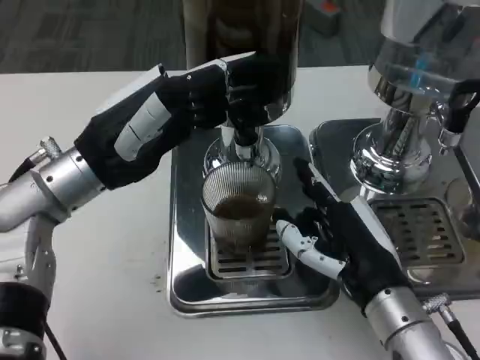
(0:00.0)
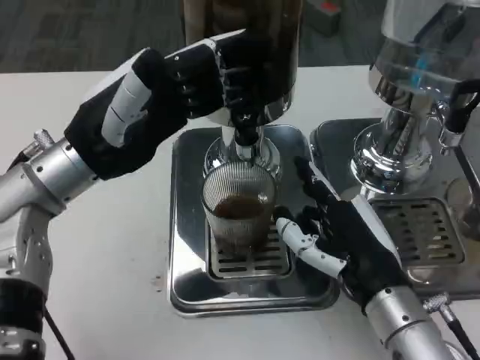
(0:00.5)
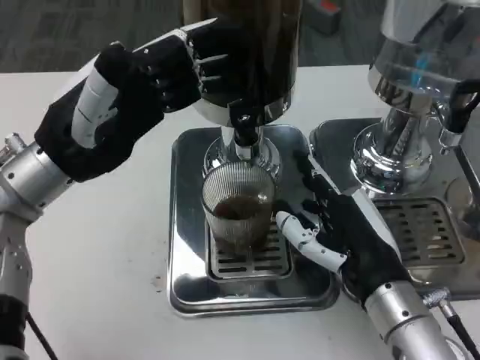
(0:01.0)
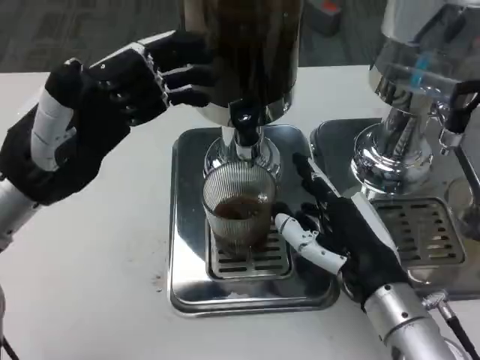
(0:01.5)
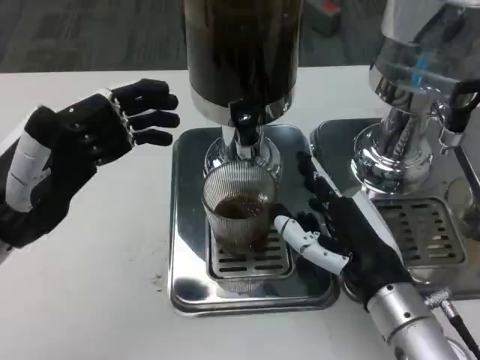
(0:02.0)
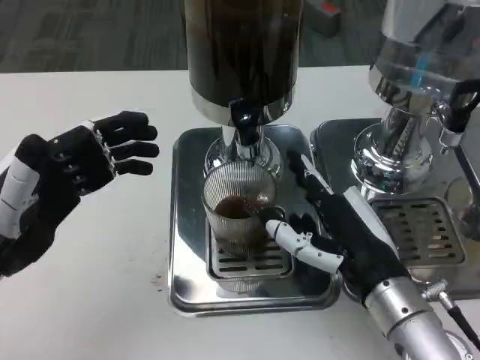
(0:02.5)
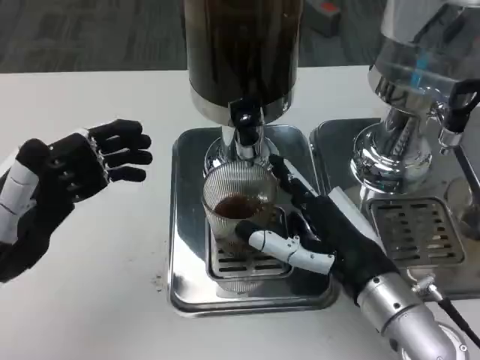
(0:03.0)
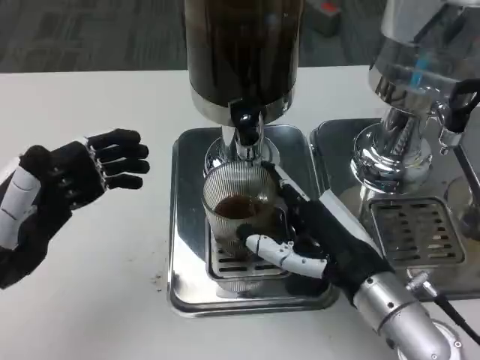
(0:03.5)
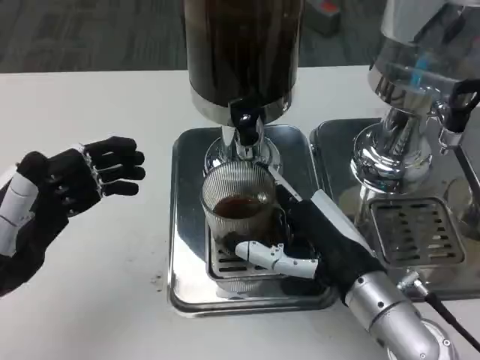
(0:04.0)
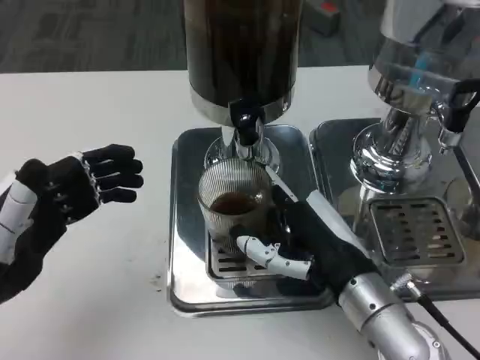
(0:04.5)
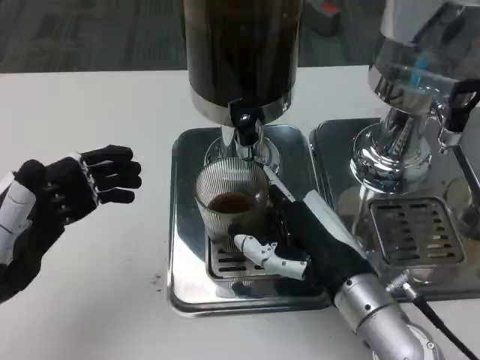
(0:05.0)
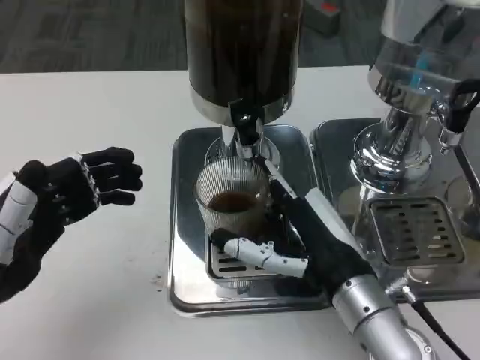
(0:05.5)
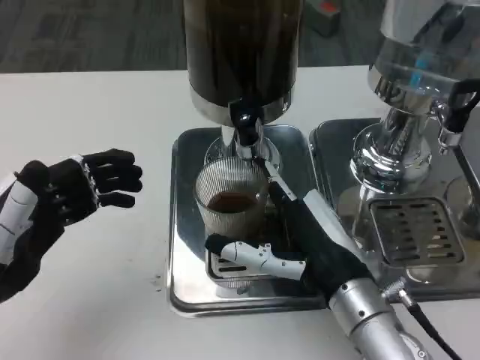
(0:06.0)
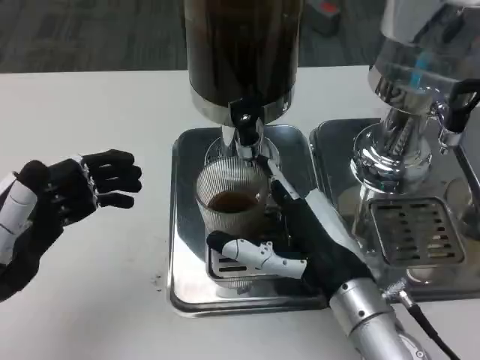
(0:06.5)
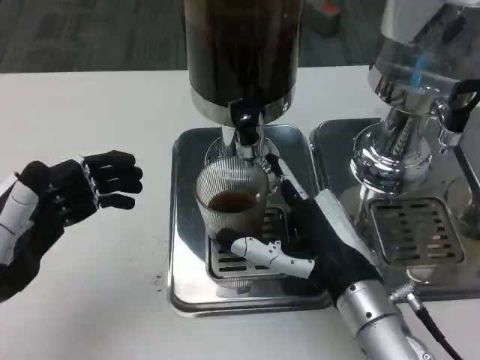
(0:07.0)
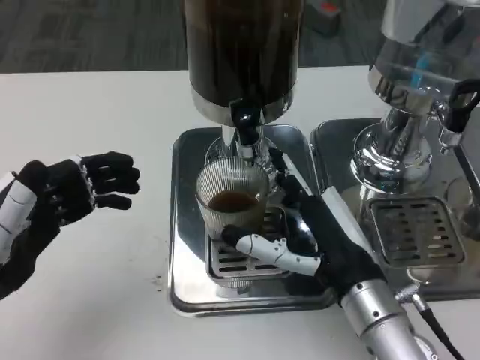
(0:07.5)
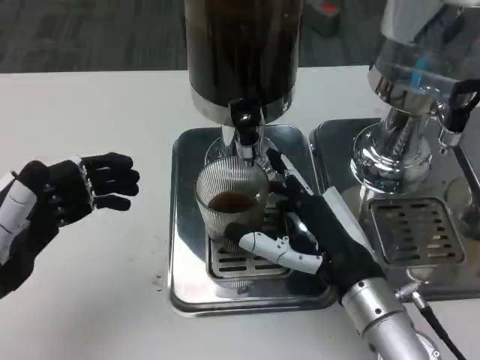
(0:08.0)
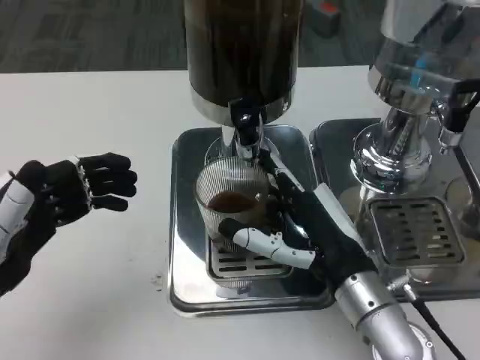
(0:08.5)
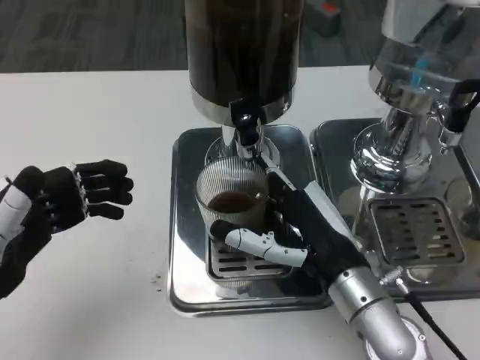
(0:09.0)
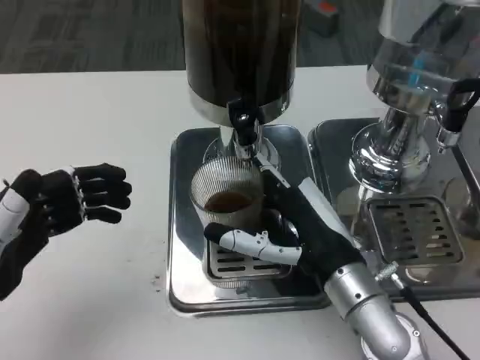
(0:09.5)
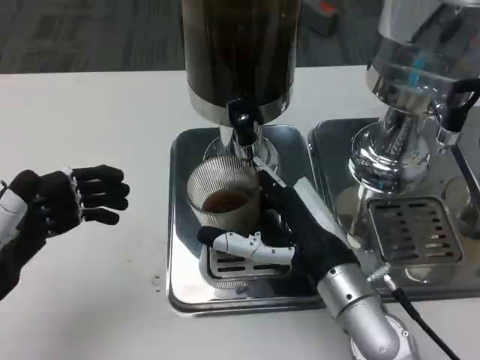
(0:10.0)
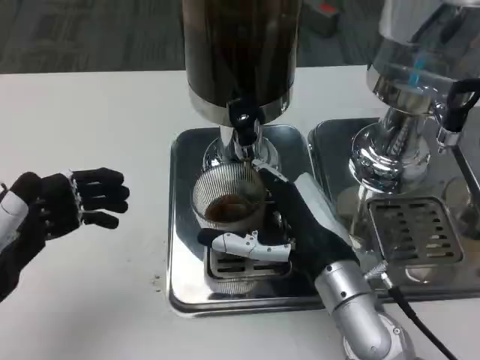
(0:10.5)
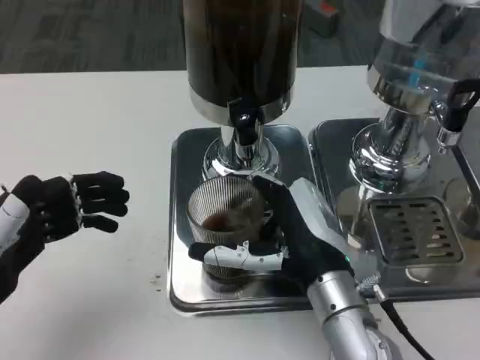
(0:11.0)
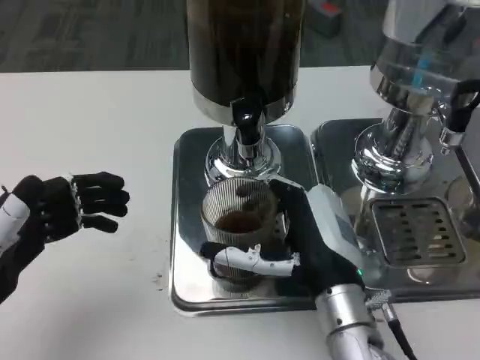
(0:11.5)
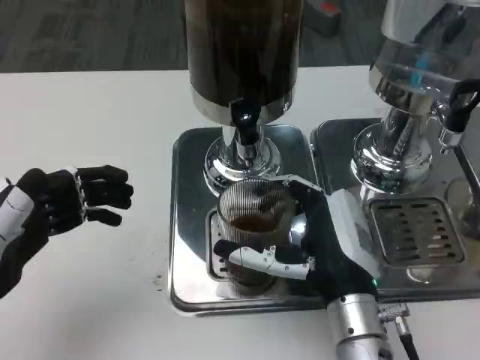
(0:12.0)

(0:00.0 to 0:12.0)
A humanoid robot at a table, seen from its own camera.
Task of the whole recording: Grasp the cup under the faucet to collect the drink, then remove the cup.
0:00.0 - 0:02.0: The left hand travels backward and to the left by roughly 10 cm.
0:04.0 - 0:10.0: The hands make only small movements.
0:10.0 - 0:12.0: The hands stay close to where they were, moving slightly.

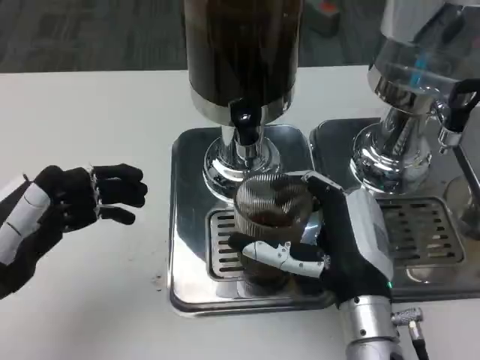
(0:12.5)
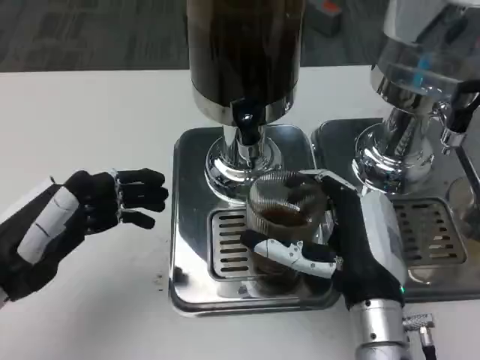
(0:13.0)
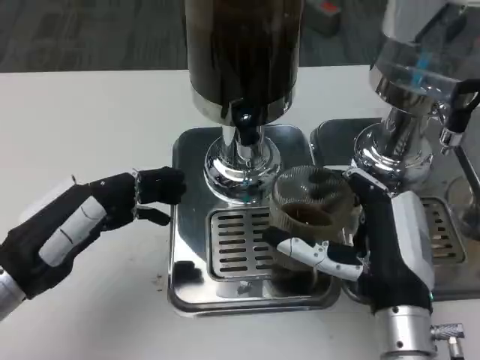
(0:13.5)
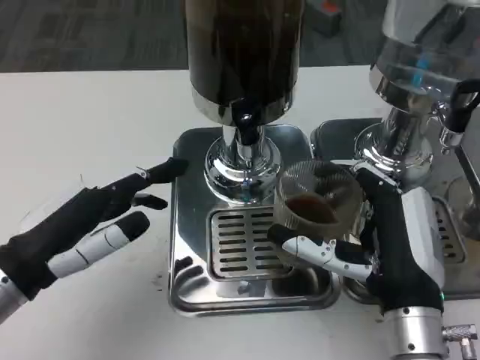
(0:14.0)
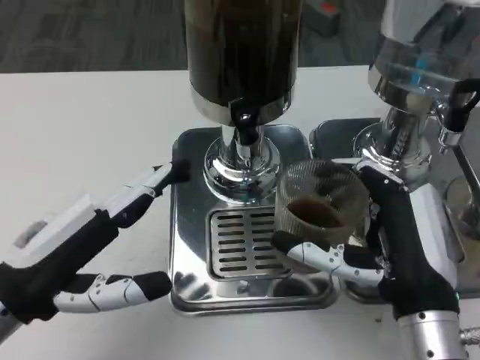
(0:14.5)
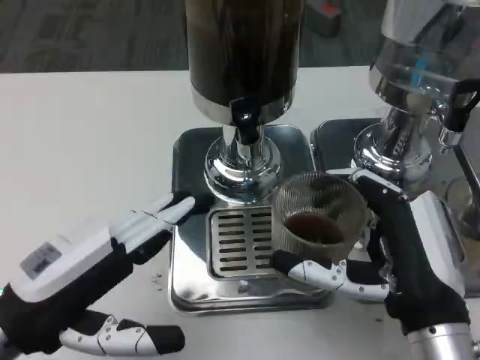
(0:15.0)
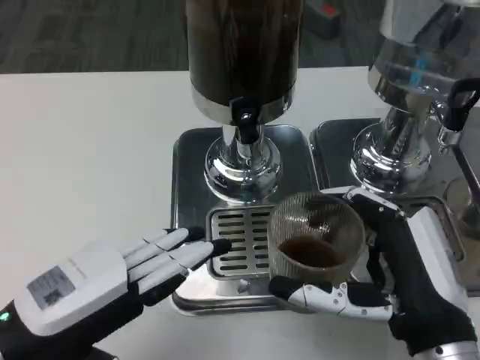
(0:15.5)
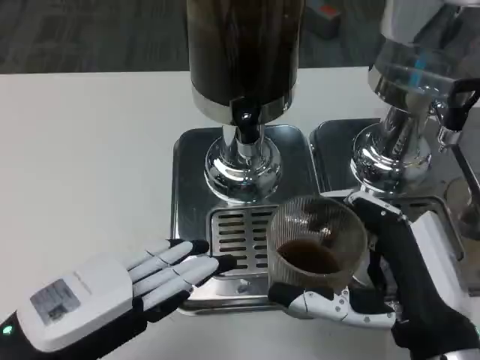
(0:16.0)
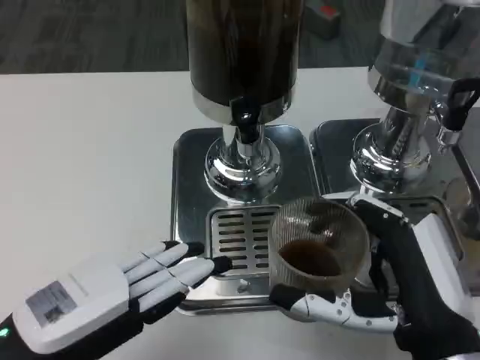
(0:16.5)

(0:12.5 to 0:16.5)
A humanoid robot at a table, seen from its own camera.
Task of the whole recording: Grasp the cup under the faucet to collect the drink, then remove the cup.
0:12.5 - 0:14.5: The right hand moves roughly 5 cm.

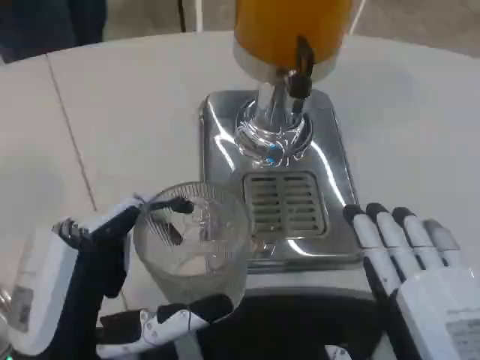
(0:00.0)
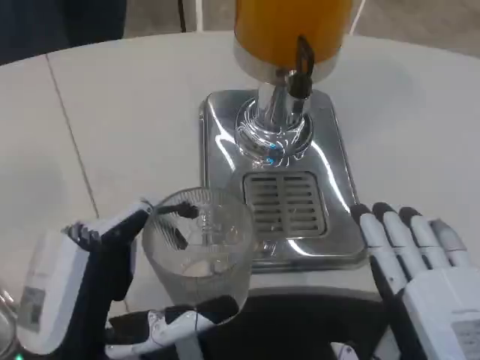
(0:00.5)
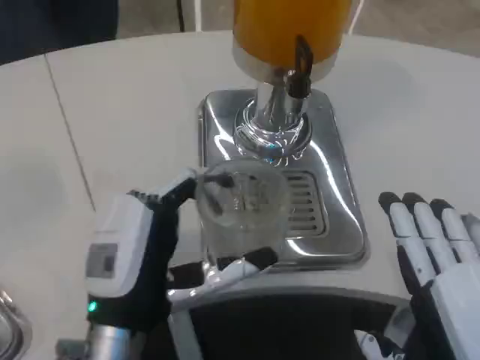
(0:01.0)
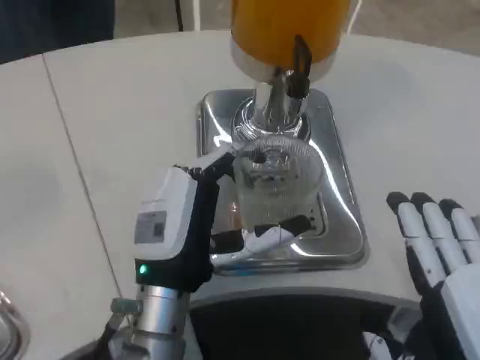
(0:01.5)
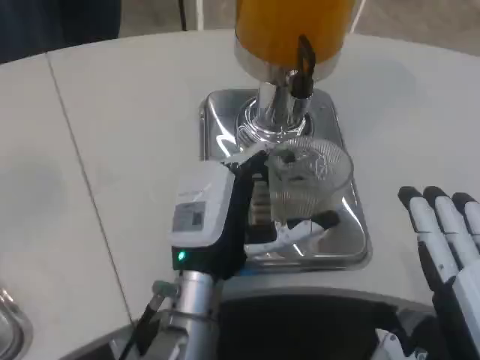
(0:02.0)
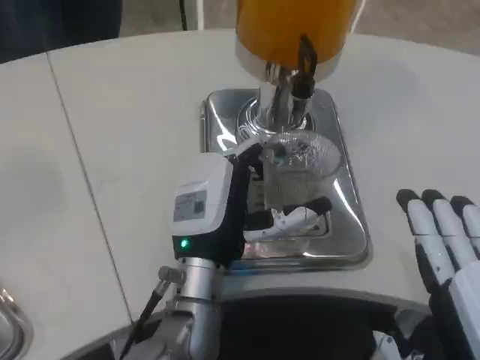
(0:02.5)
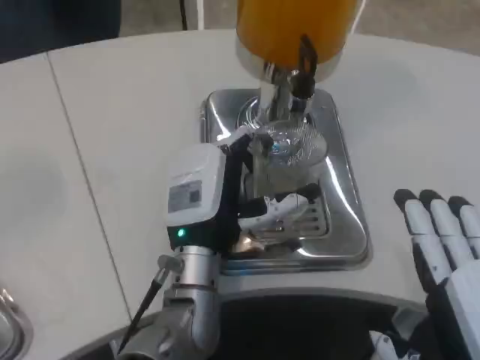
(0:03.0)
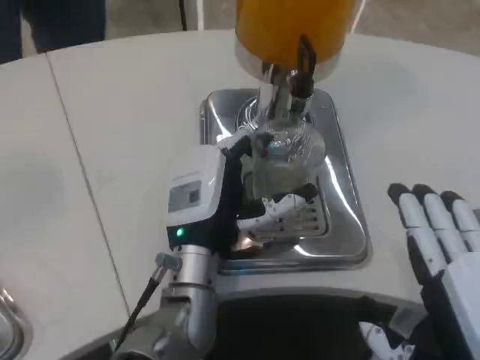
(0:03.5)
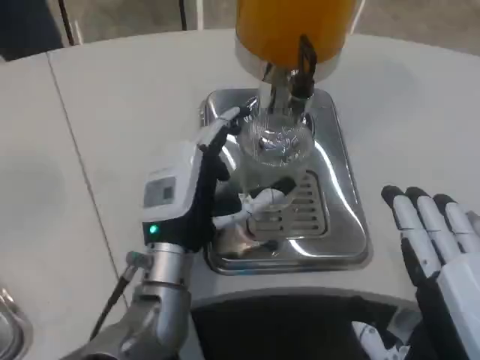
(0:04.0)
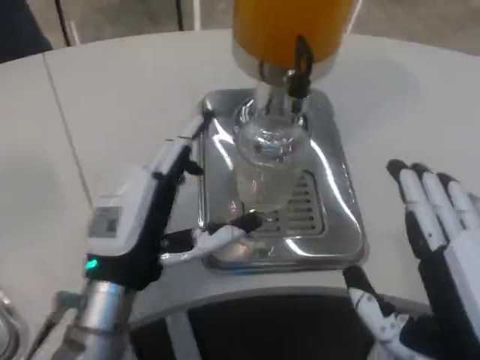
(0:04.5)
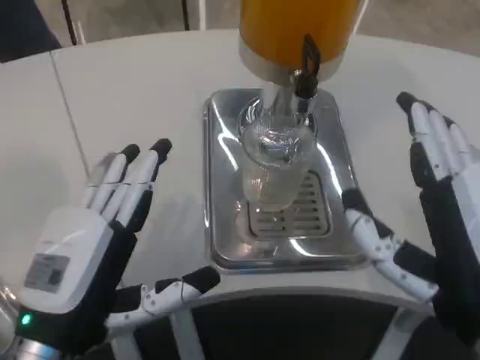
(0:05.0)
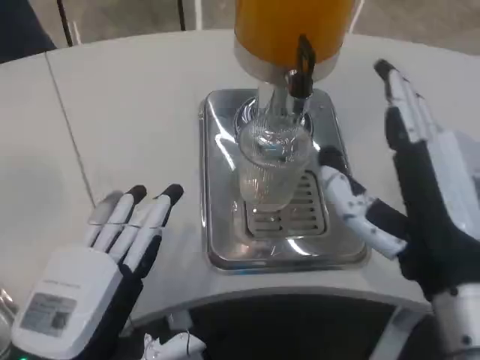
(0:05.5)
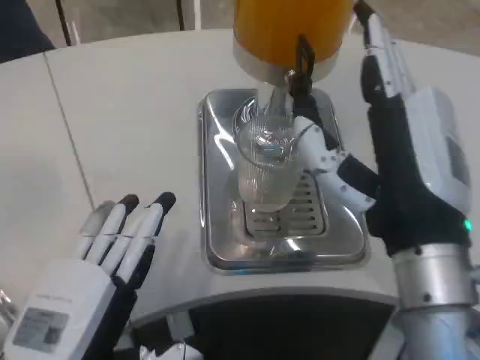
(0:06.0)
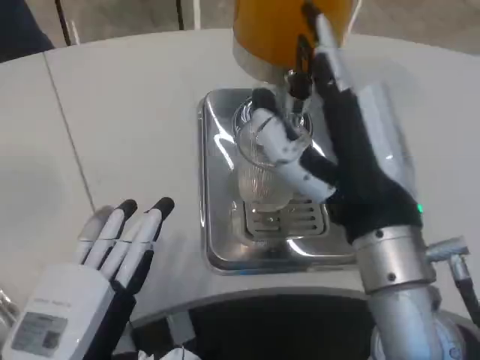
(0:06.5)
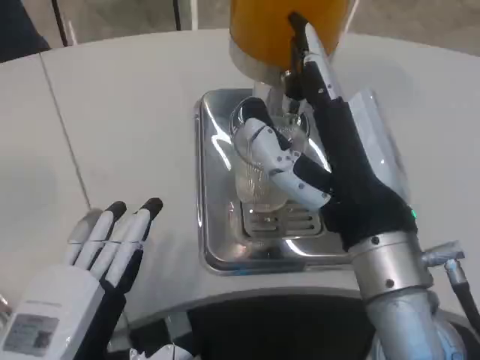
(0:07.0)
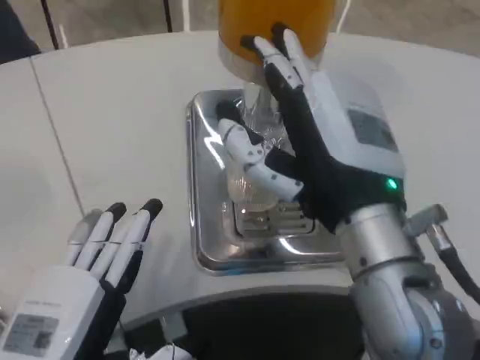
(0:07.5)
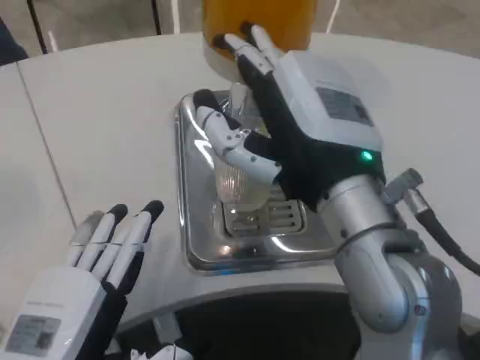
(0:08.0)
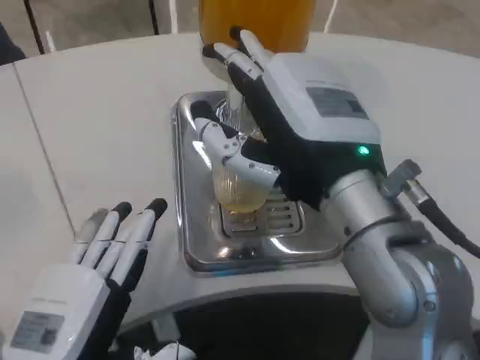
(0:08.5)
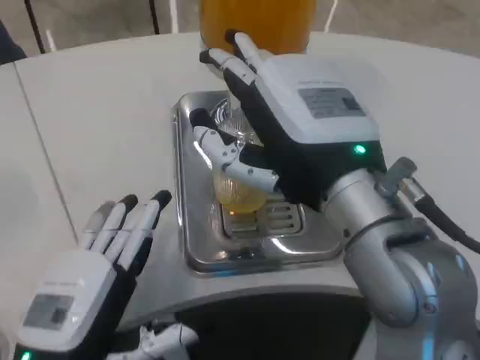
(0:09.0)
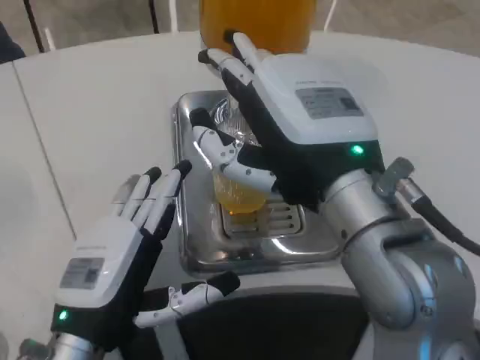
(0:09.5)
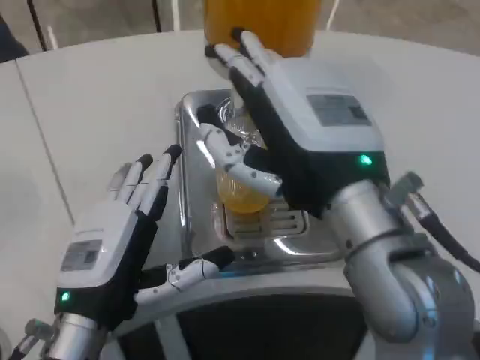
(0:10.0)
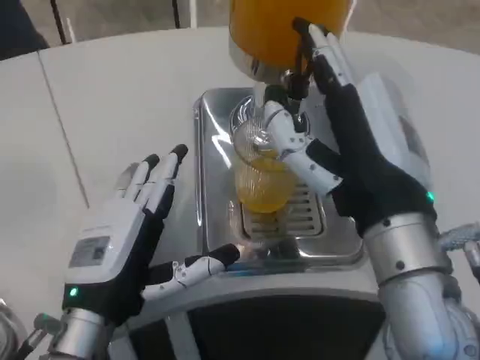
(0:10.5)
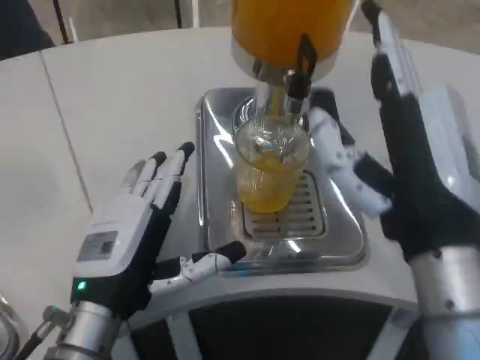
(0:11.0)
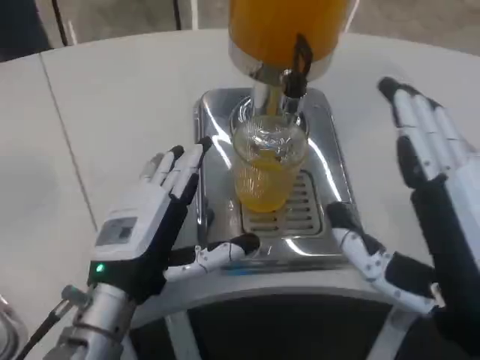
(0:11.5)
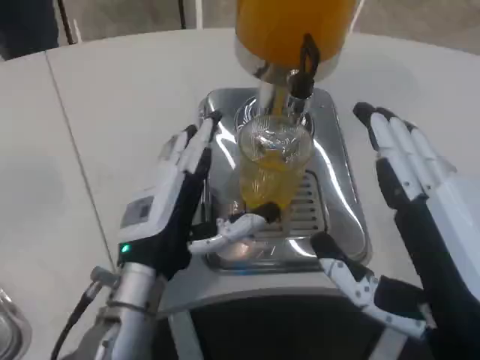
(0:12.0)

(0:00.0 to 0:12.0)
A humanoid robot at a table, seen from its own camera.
Task of the whole recording: Grasp the cup under the faucet to collect the drink, then remove the cup.
0:00.0 - 0:02.0: The left hand travels forward and to the right by approximately 15 cm.
0:04.0 - 0:06.0: The left hand heads backward and to the left, covering roughly 20 cm; the right hand moves forward, roughly 10 cm.
0:06.0 - 0:08.0: The right hand ends up about 5 cm from where it was.
0:08.0 - 0:10.0: The left hand shifts approximately 10 cm forward.
0:10.0 - 0:12.0: The left hand shifts some 5 cm to the right, while the right hand travels backward, to the right and downward by roughly 15 cm.
